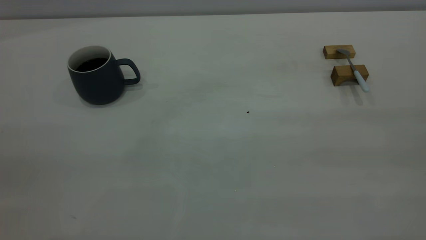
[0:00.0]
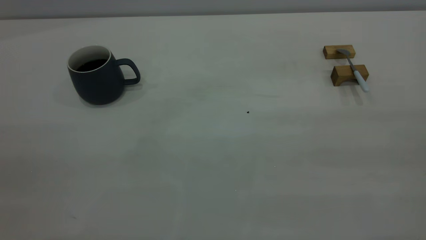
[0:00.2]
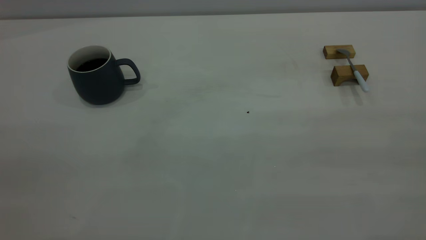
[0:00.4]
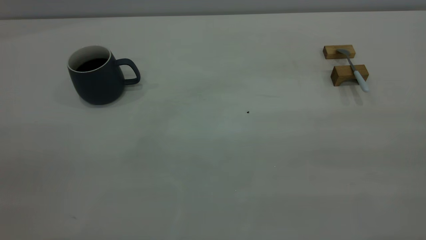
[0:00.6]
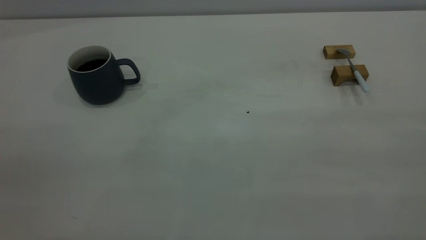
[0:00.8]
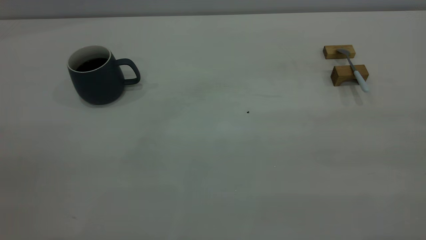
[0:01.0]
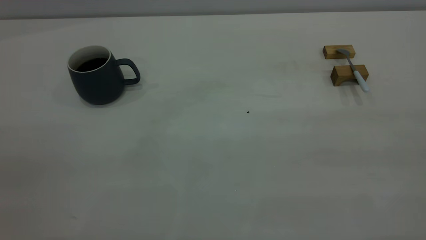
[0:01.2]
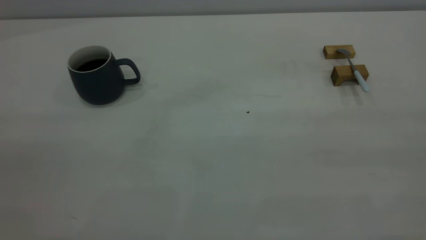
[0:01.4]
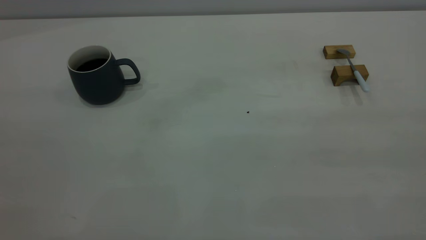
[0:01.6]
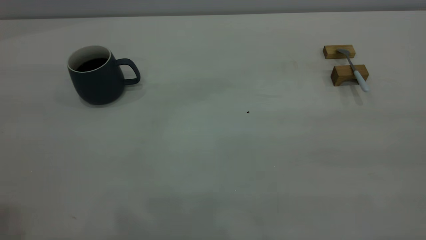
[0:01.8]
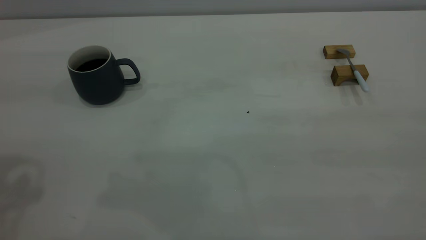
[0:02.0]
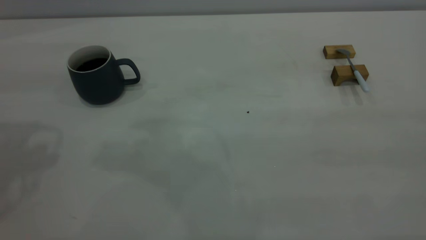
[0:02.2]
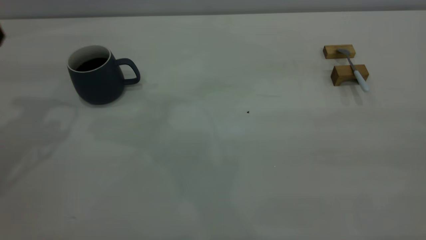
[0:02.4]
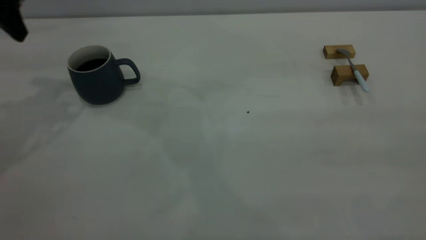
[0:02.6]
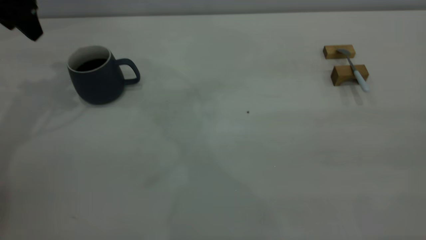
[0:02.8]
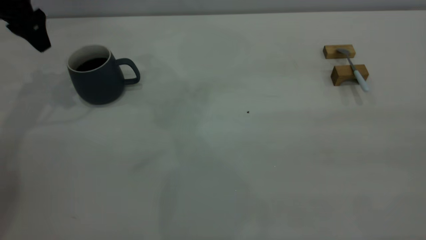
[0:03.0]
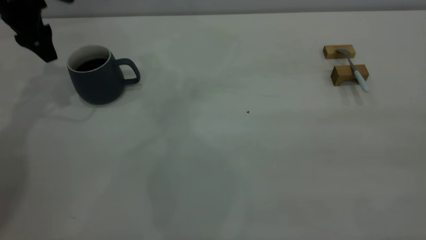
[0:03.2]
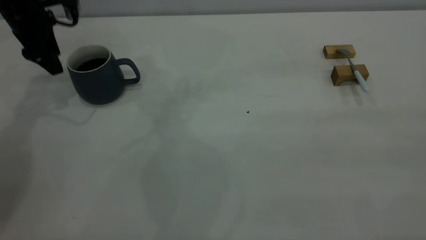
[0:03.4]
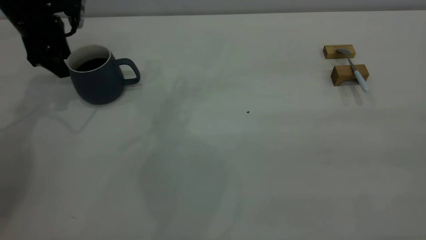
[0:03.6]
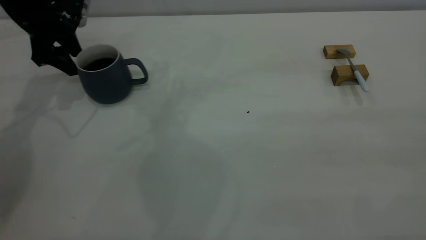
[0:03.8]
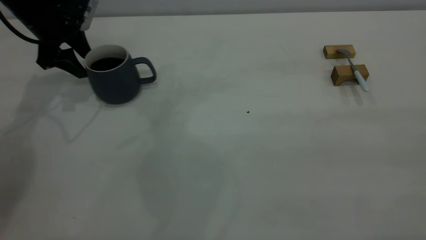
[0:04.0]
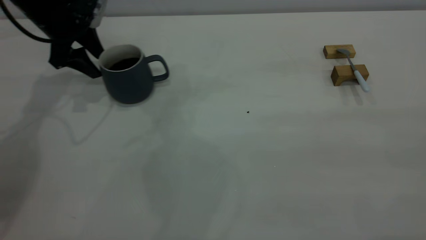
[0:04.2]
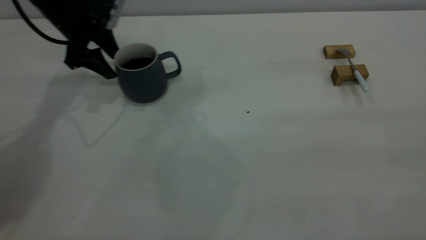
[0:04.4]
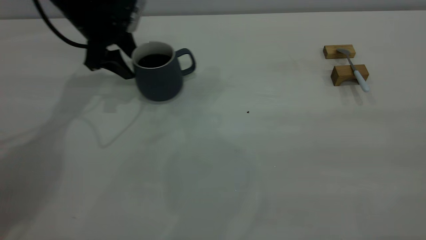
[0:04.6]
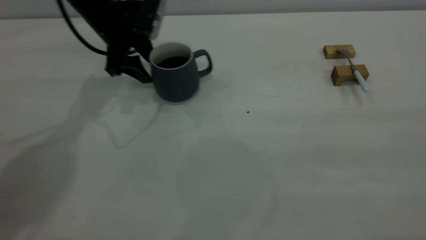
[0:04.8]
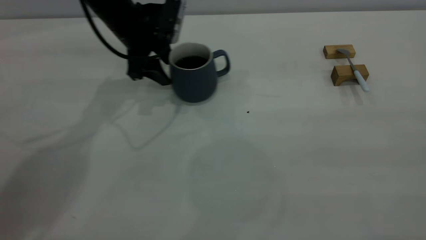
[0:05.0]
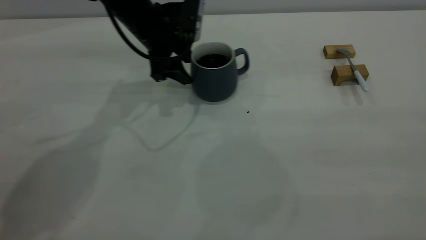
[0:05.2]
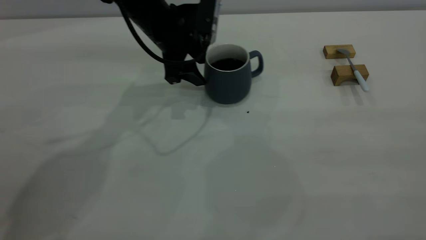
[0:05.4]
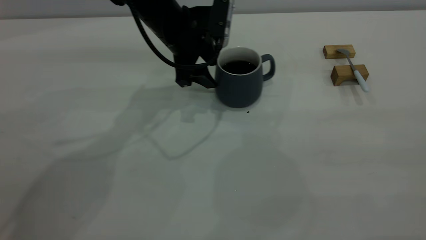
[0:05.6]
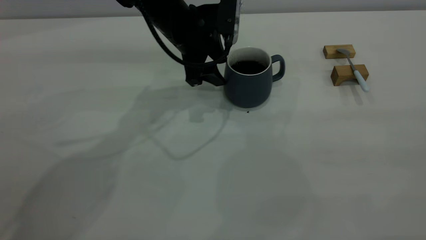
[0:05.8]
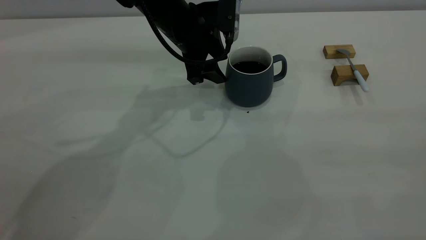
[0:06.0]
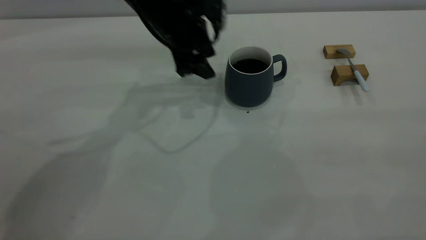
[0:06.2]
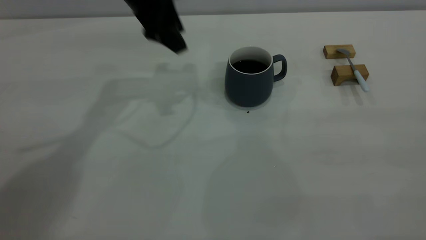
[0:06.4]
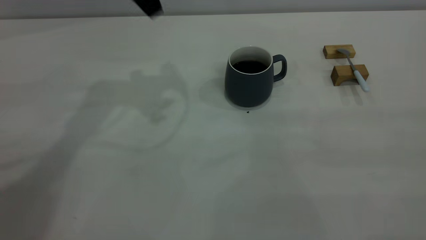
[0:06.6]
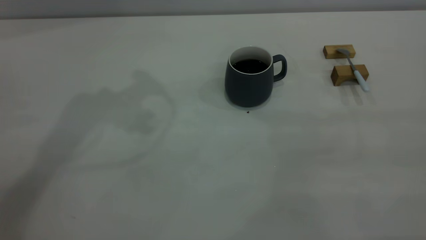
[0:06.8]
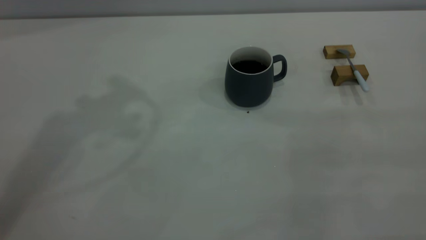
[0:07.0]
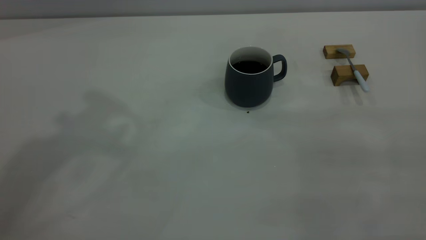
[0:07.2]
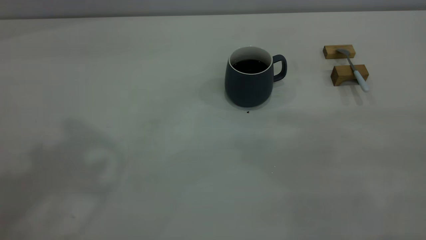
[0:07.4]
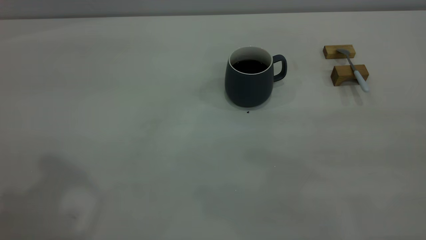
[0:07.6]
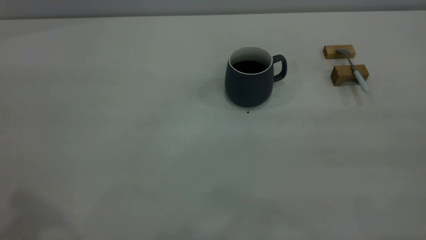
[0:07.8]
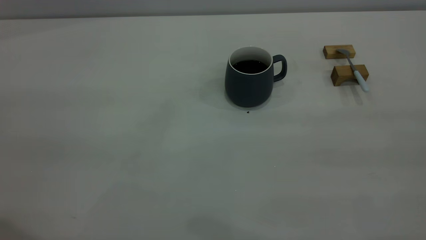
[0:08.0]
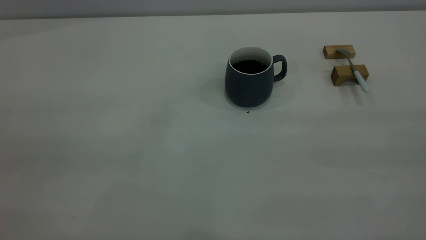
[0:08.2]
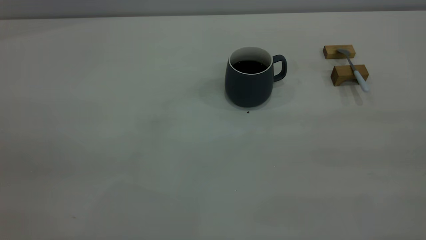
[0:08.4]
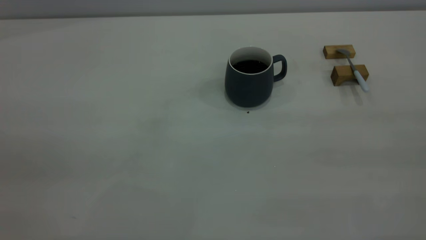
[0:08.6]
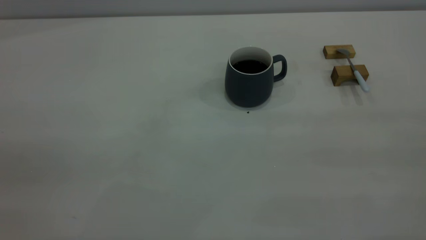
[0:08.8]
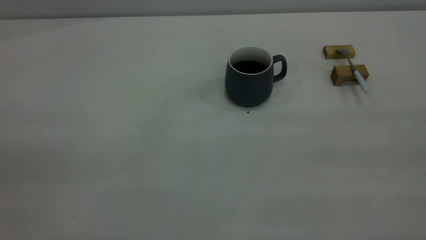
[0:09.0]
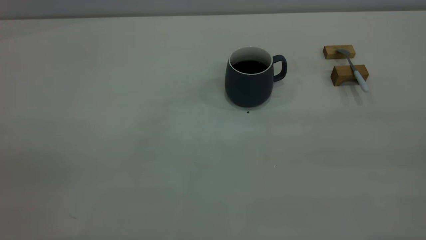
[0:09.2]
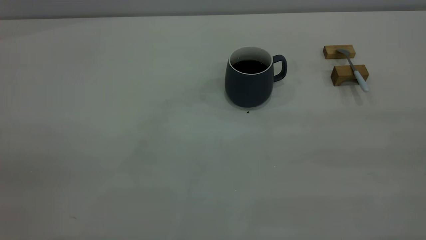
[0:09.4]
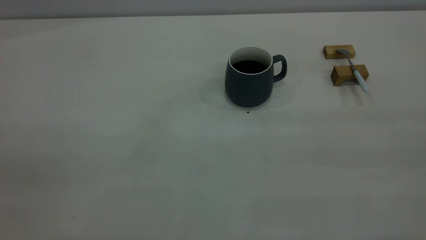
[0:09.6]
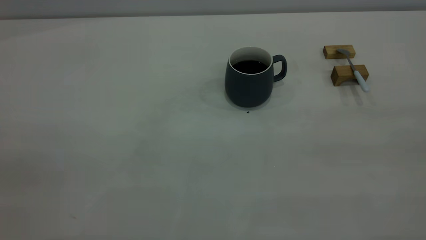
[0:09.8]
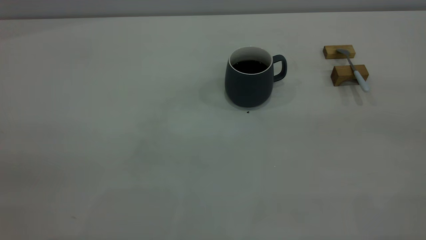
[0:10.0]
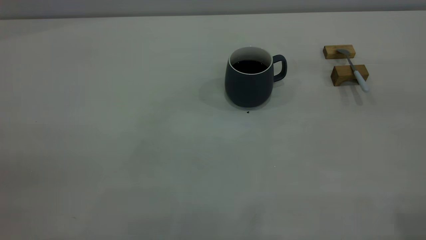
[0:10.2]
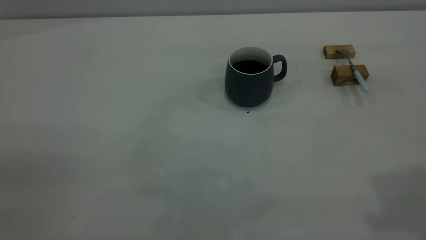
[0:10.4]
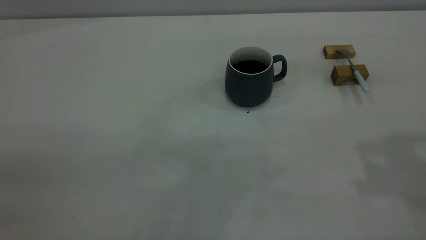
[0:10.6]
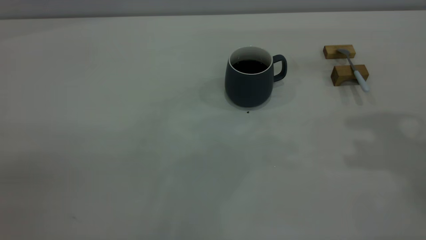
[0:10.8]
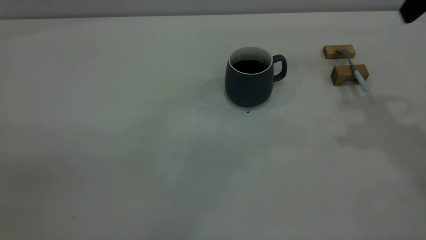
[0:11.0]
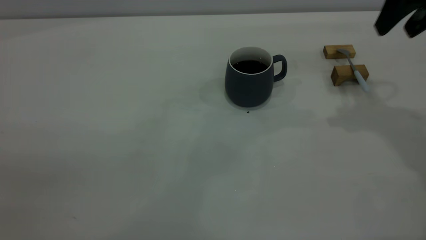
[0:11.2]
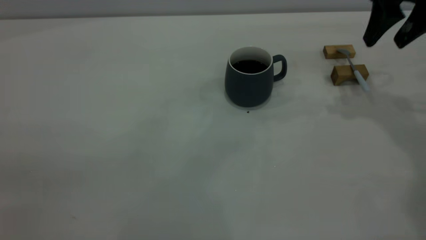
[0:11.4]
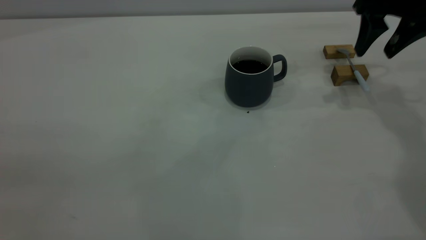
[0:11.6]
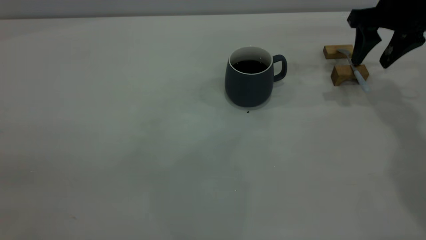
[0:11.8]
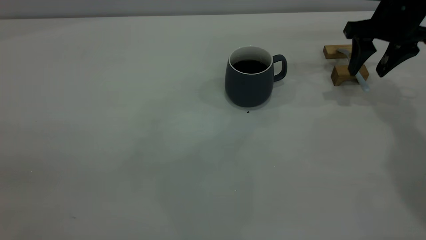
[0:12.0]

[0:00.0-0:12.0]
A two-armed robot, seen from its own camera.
Step, 0:00.0 to 0:06.2: Move the cup with coffee to the center of view.
0:01.6 to 0:03.0: The left gripper heads forward and downward, covering roughly 40 cm.
0:03.0 to 0:04.4: The left gripper heads to the right and downward, covering approximately 10 cm.
0:04.4 to 0:06.0: The left gripper goes some 15 cm to the right.
0:06.0 to 0:07.6: The left gripper shifts roughly 40 cm upward, backward and to the left.
0:10.4 to 0:12.0: The right gripper is displaced forward and downward by roughly 35 cm.

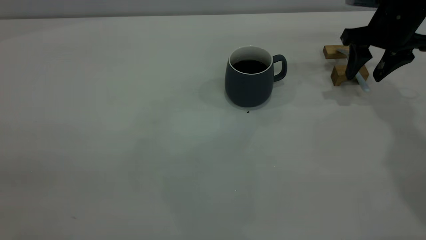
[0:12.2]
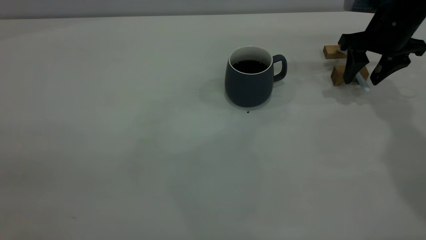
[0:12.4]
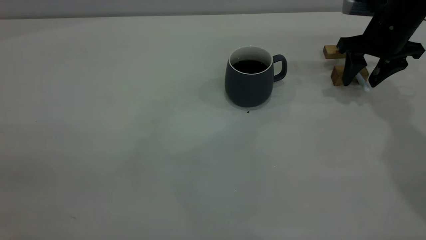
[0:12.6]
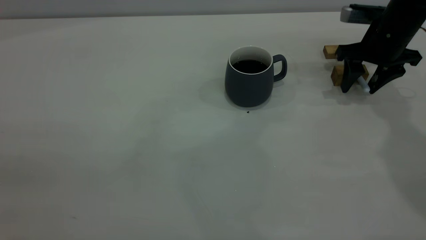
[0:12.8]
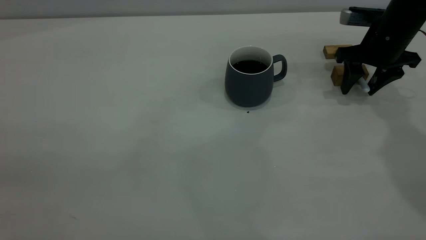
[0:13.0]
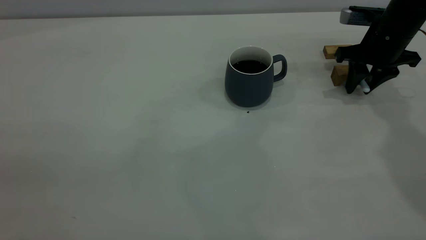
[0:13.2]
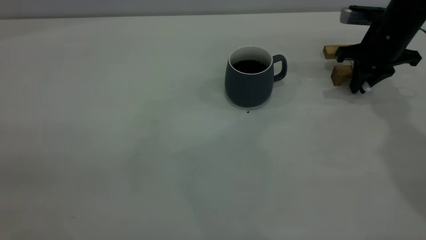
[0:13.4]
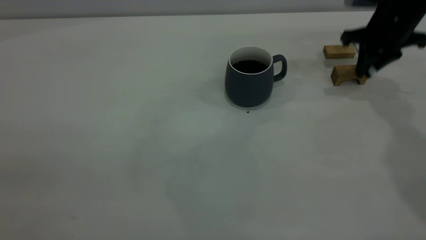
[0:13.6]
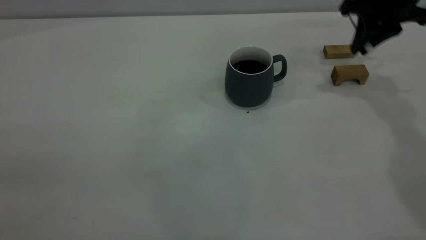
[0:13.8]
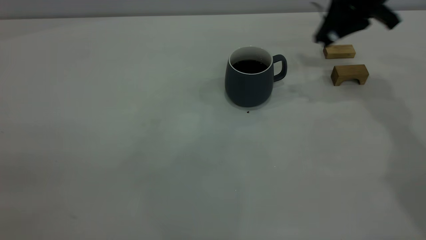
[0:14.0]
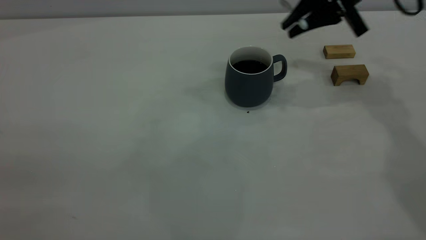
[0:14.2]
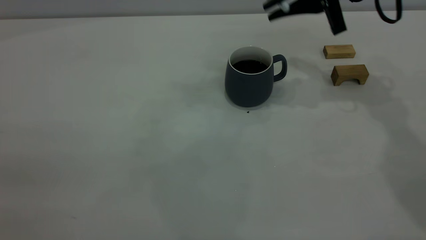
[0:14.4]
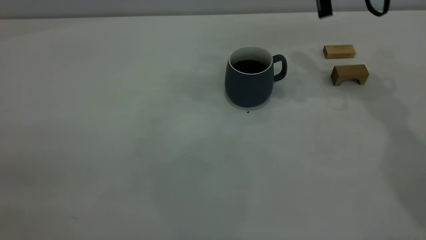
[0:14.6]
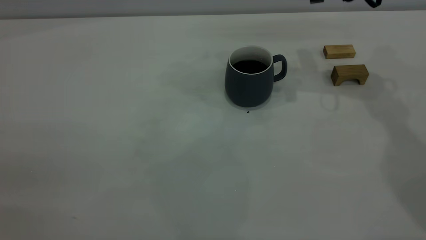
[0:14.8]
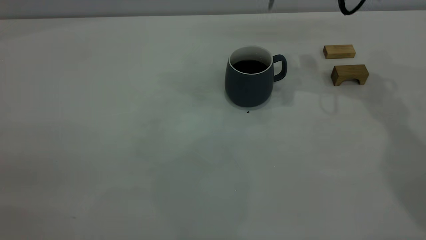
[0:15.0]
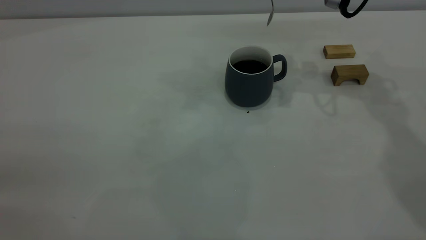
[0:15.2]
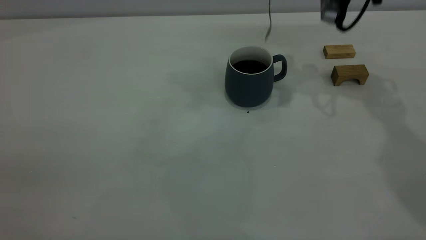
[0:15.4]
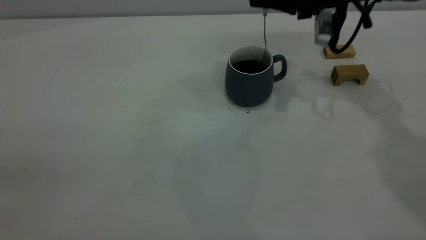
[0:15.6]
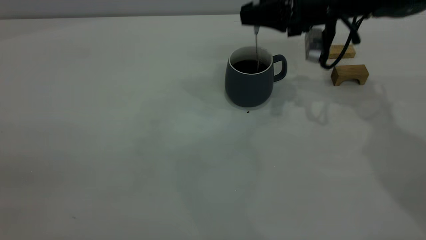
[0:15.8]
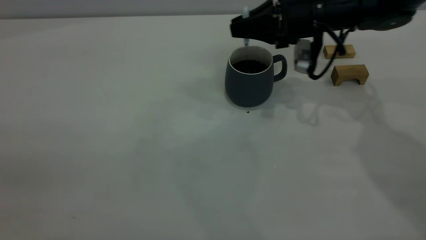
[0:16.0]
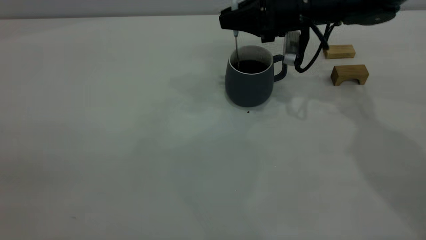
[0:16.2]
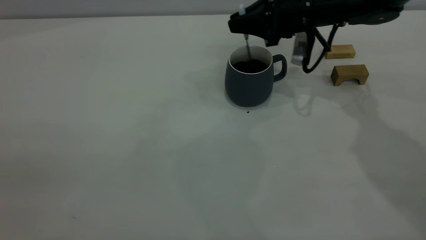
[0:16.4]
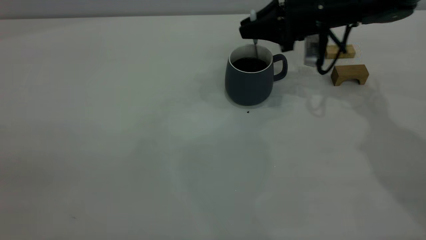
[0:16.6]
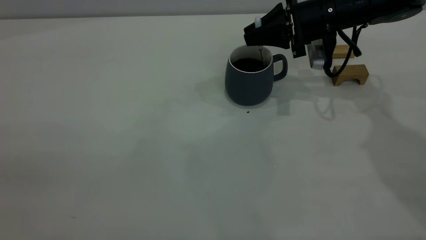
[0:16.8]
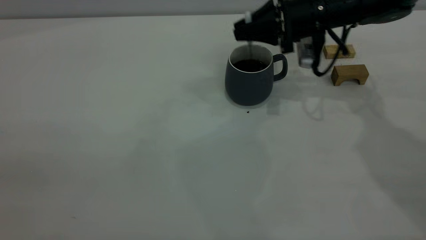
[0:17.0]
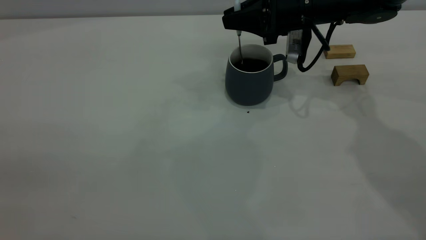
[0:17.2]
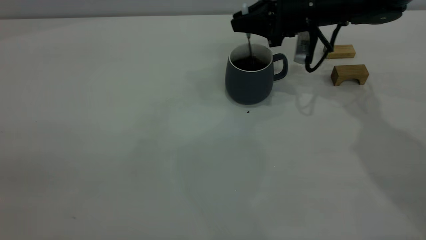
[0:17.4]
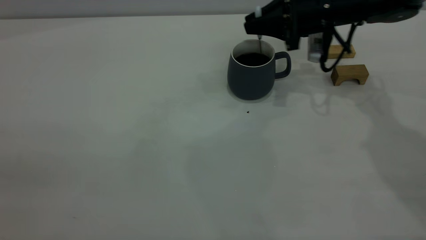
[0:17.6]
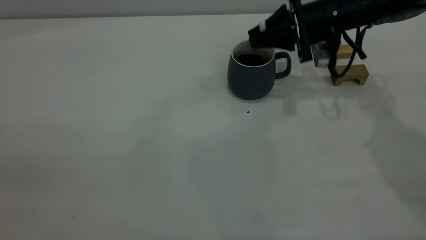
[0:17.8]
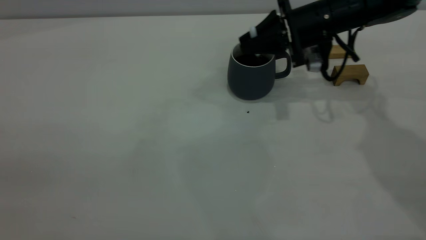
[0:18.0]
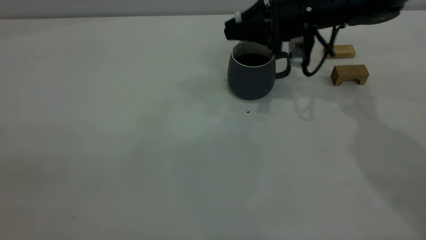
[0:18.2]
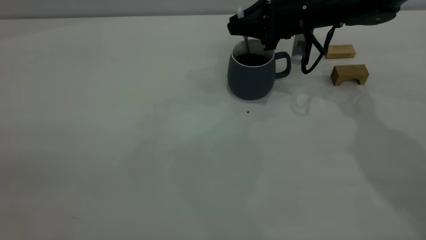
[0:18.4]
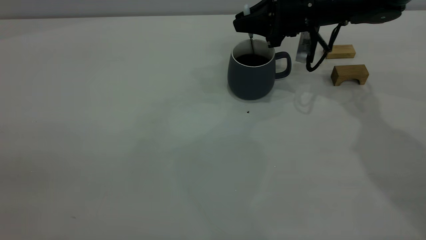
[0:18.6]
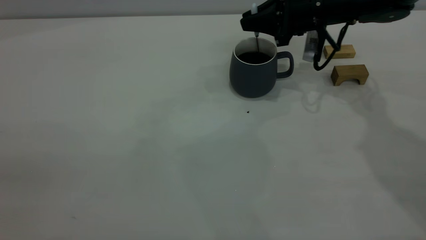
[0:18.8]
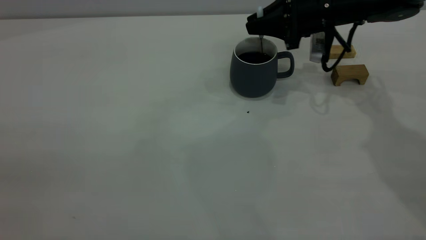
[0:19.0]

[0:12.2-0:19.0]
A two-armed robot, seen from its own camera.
0:12.2 to 0:13.6: The right gripper closes.
0:13.6 to 0:15.0: The right gripper is displaced to the left and upward by some 10 cm.
0:15.0 to 0:16.2: The right gripper moves downward, some 10 cm.
0:16.2 to 0:19.0: There are only small adjustments of the grippers.
